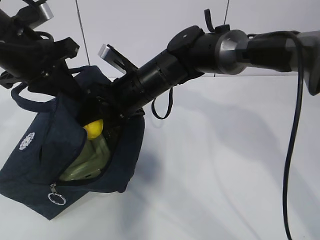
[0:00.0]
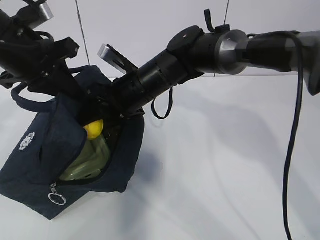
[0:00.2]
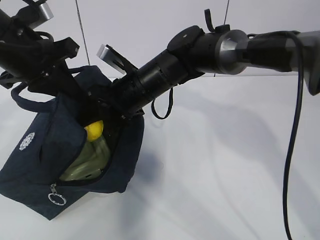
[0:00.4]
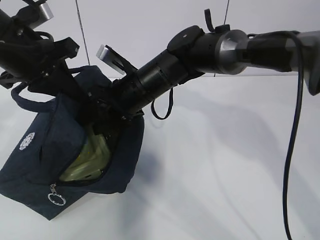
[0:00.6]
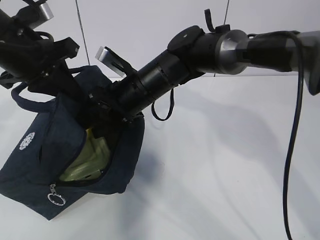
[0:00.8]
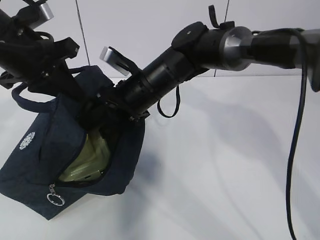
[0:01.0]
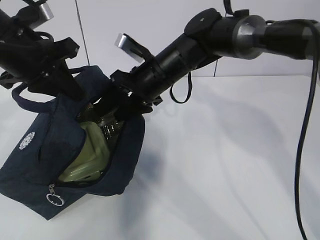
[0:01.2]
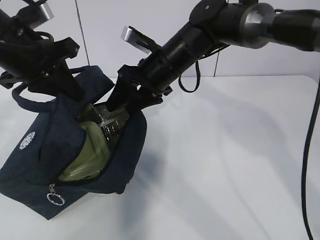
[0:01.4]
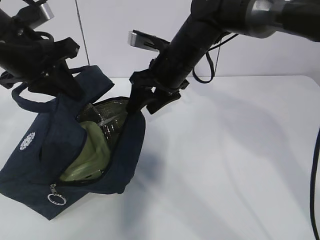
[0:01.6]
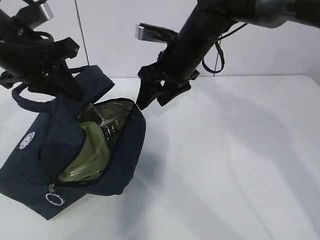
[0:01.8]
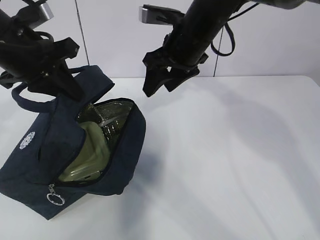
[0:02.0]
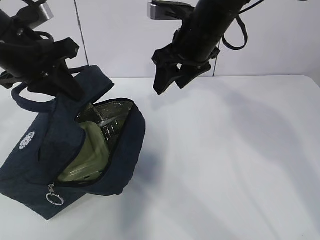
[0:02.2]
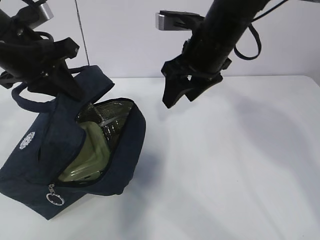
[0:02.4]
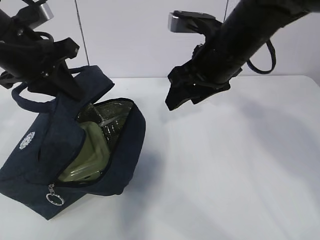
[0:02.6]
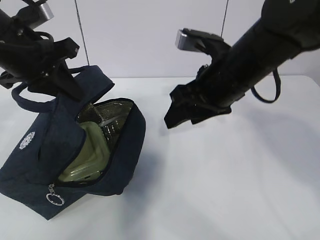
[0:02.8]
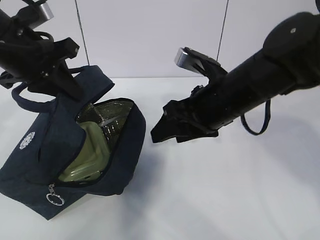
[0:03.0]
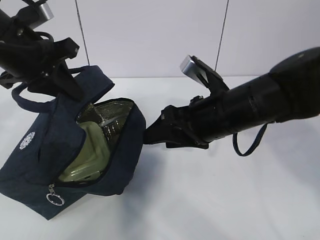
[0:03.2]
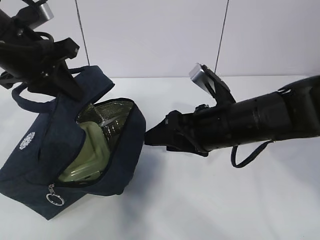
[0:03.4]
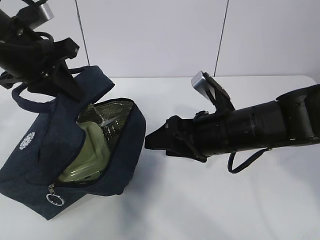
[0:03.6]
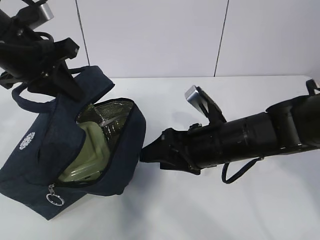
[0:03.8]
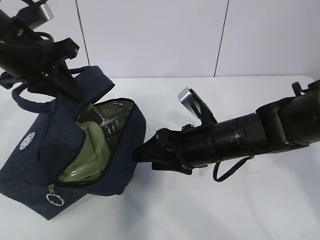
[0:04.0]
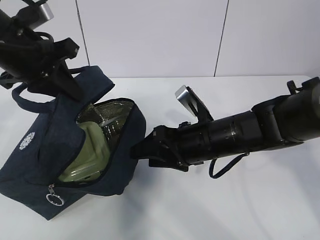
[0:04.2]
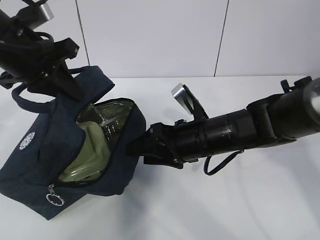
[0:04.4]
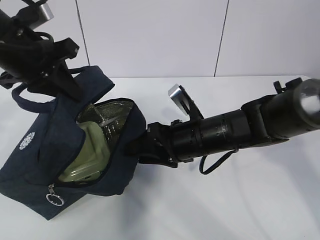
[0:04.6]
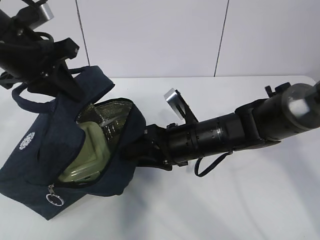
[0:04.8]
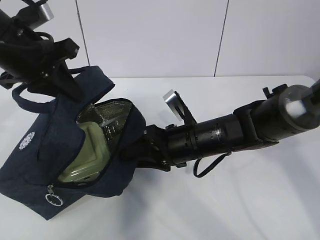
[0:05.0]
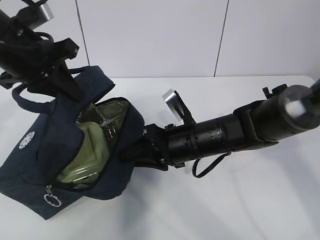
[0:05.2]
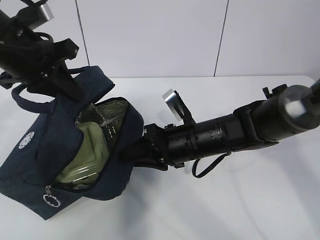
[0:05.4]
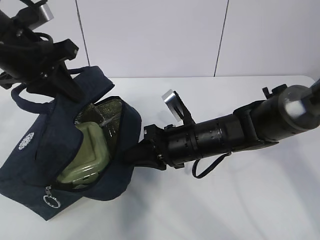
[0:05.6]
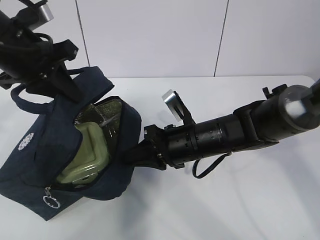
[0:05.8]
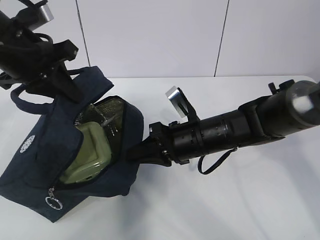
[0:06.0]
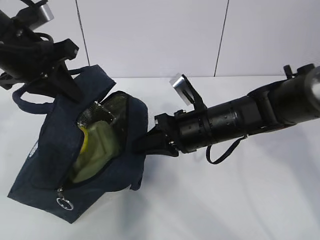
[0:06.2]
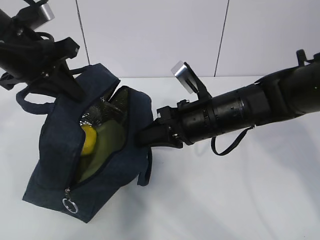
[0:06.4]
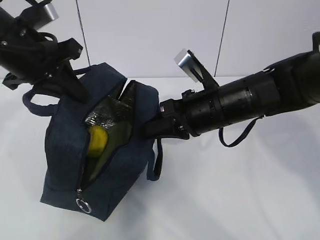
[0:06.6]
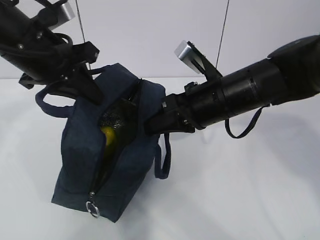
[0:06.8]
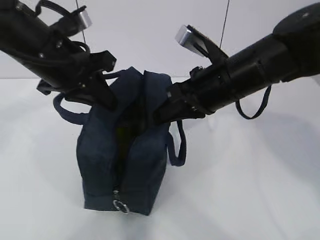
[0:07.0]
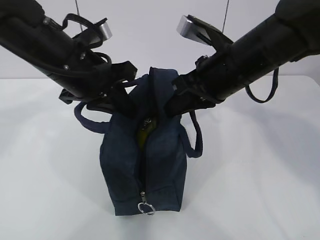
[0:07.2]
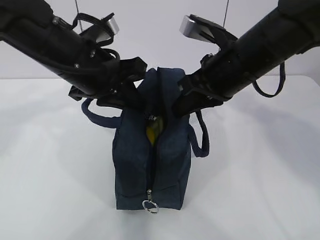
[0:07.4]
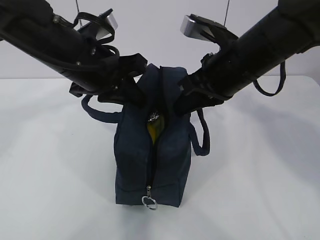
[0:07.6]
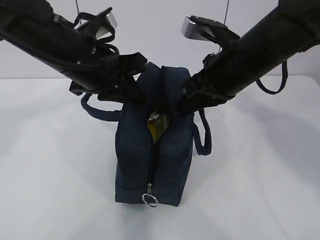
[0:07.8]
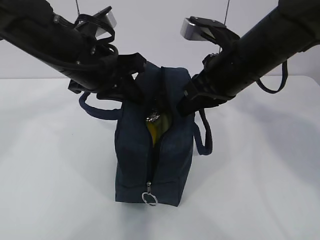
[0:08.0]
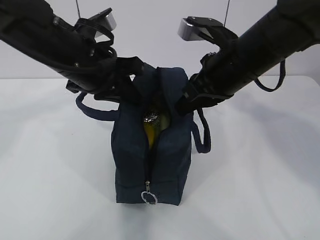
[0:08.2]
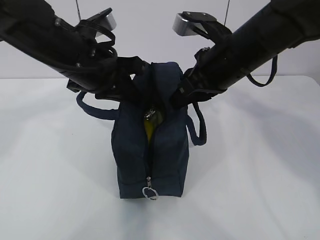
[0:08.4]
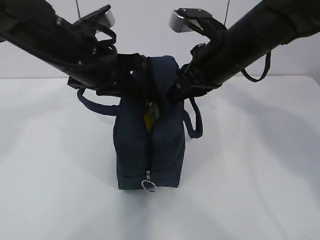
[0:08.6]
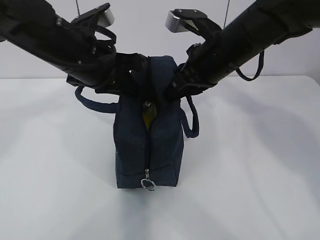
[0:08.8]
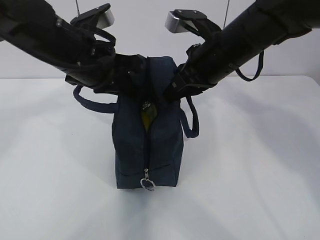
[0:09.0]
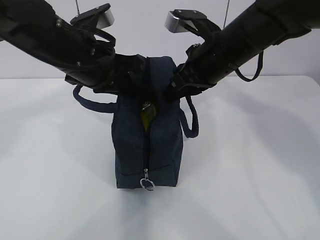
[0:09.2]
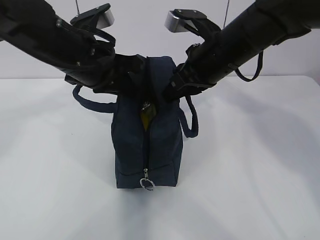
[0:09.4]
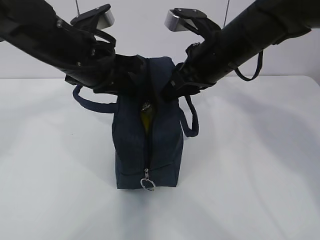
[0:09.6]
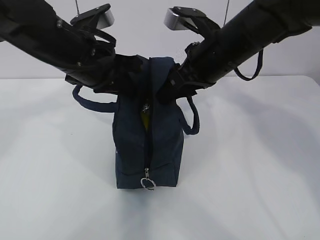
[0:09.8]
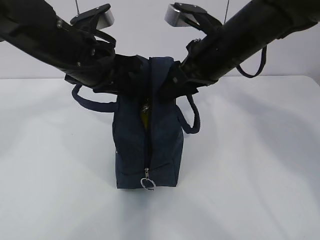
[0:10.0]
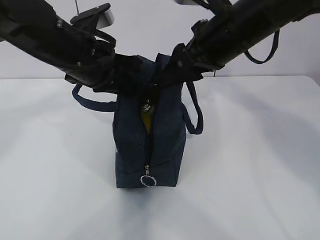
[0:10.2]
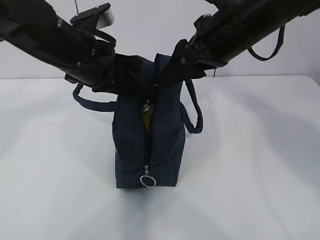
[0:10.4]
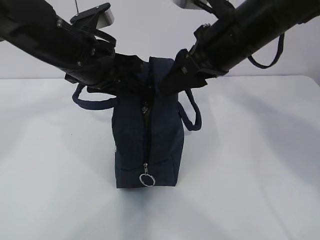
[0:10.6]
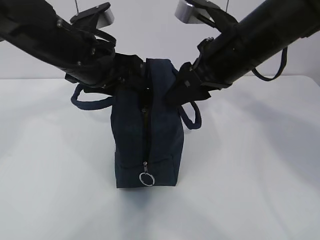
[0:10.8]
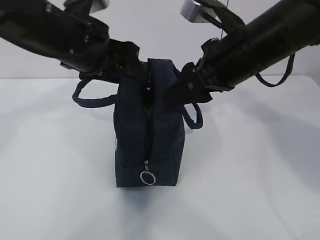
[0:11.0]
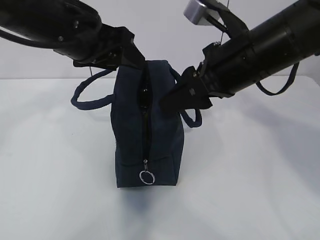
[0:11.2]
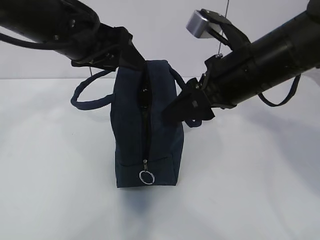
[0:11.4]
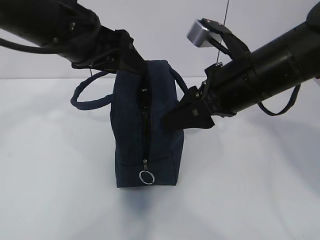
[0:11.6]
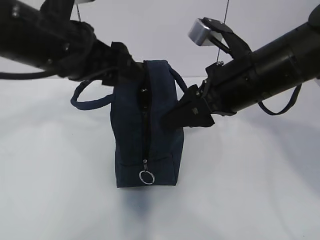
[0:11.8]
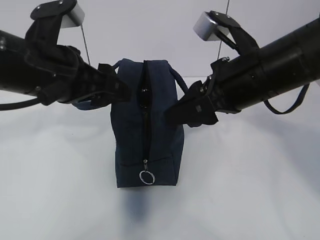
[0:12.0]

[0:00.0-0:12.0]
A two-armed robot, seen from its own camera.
0:00.0 to 0:01.6: The right gripper moves to the right, about 5 cm.
0:01.6 to 0:03.0: The right gripper moves backward and to the right, about 10 cm.
0:03.0 to 0:04.4: The right gripper shifts roughly 10 cm downward.
0:04.4 to 0:06.0: The right gripper closes.
0:06.0 to 0:07.6: The left gripper moves to the right, some 10 cm. The right gripper shifts approximately 15 cm upward.
0:07.6 to 0:09.0: The grippers move only a little.
0:09.0 to 0:10.4: The right gripper moves roughly 5 cm, and opens up.
0:10.4 to 0:12.0: Both grippers travel together backward, about 5 cm. The left gripper opens.

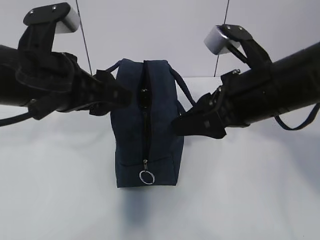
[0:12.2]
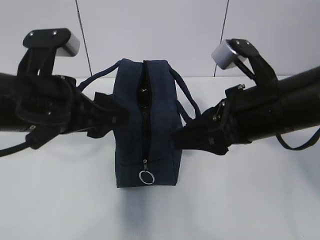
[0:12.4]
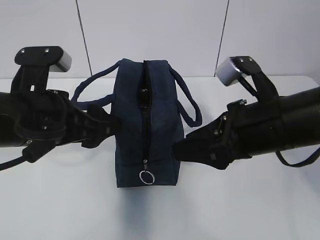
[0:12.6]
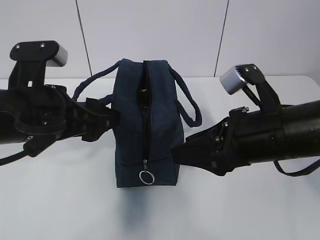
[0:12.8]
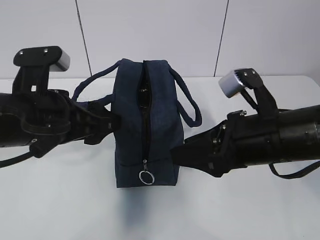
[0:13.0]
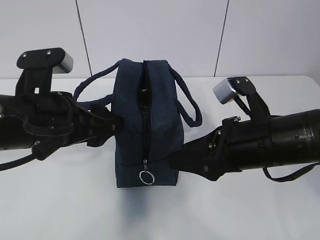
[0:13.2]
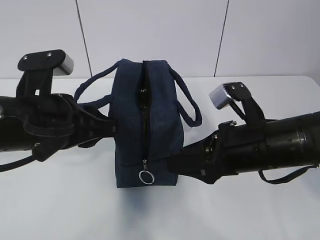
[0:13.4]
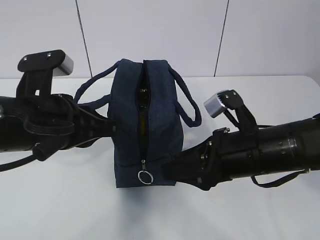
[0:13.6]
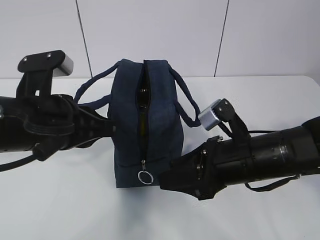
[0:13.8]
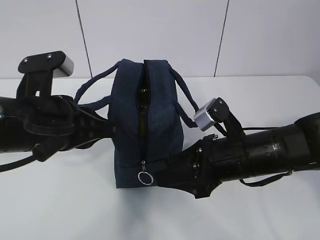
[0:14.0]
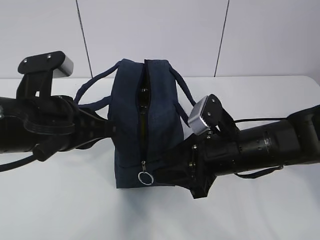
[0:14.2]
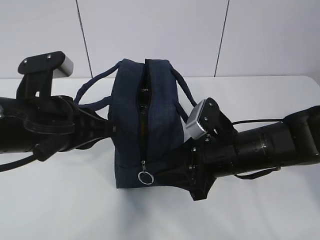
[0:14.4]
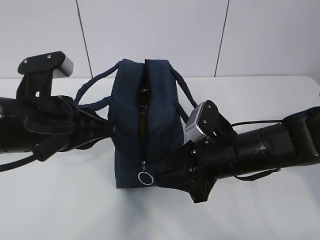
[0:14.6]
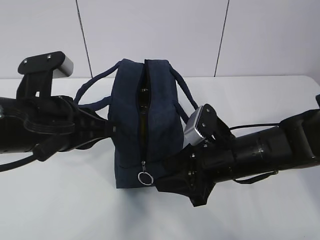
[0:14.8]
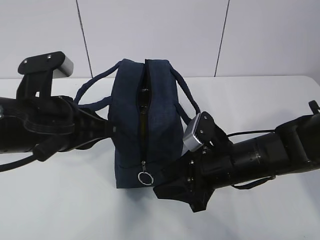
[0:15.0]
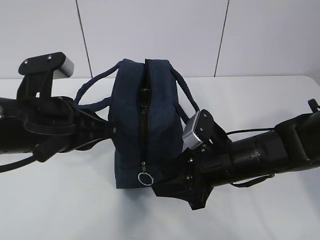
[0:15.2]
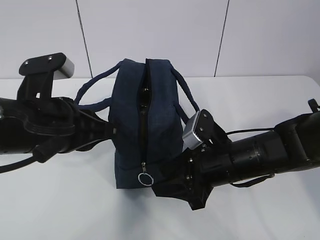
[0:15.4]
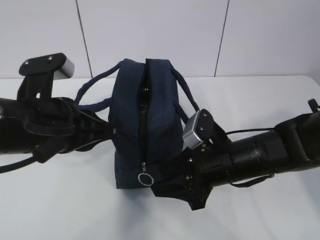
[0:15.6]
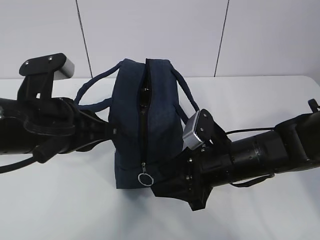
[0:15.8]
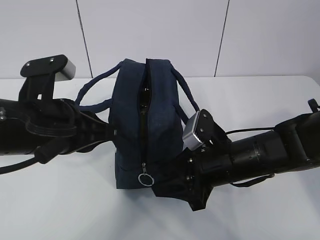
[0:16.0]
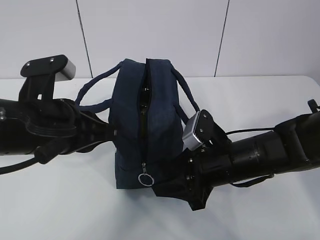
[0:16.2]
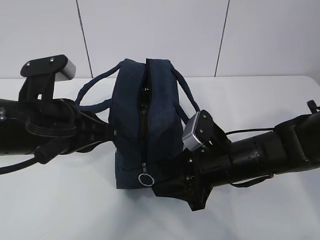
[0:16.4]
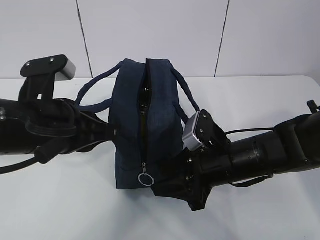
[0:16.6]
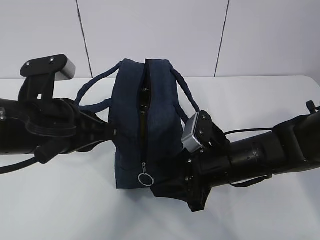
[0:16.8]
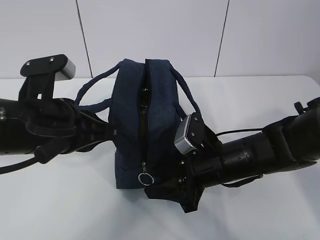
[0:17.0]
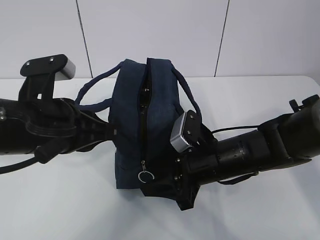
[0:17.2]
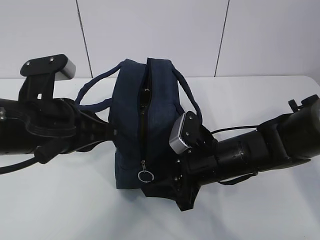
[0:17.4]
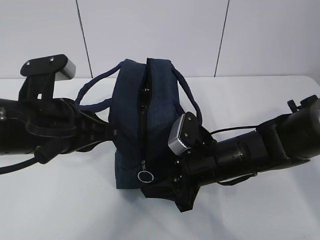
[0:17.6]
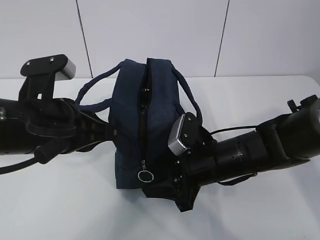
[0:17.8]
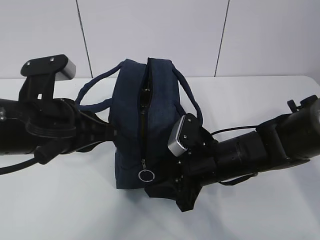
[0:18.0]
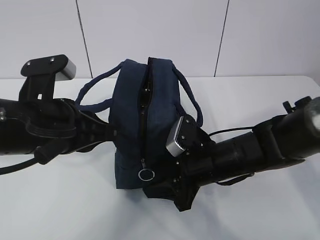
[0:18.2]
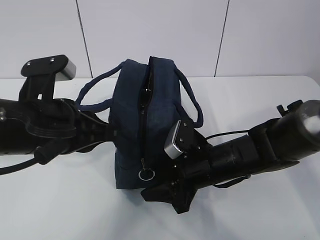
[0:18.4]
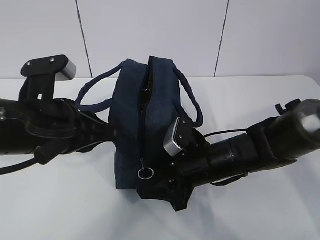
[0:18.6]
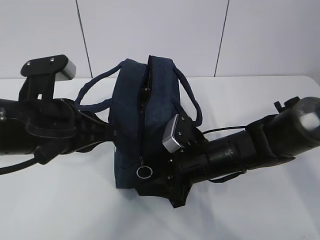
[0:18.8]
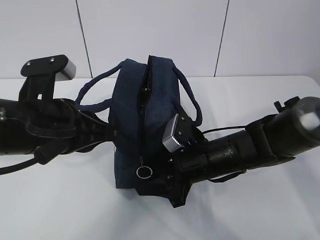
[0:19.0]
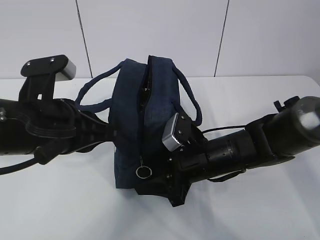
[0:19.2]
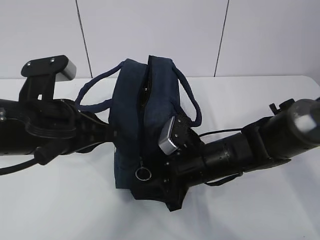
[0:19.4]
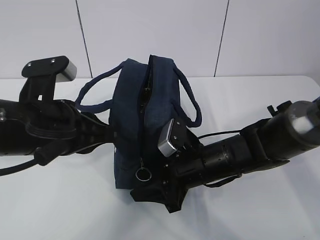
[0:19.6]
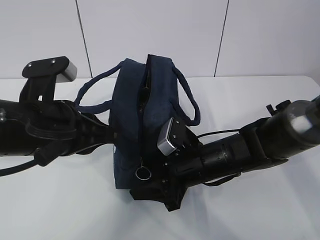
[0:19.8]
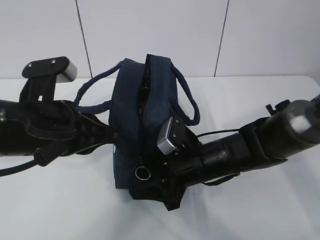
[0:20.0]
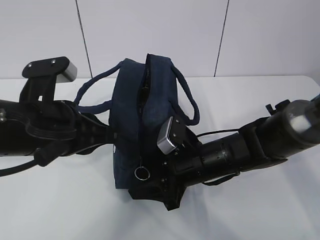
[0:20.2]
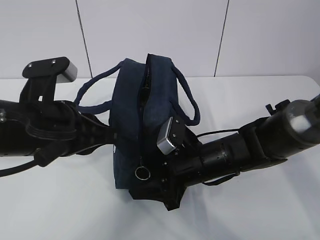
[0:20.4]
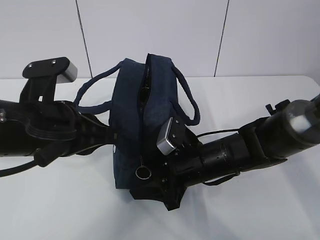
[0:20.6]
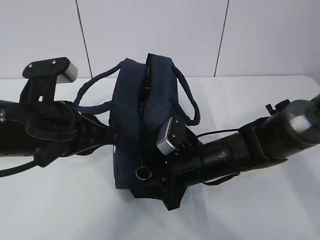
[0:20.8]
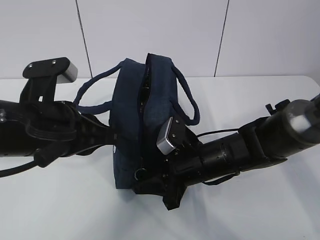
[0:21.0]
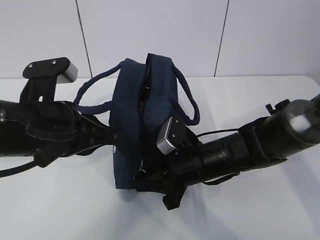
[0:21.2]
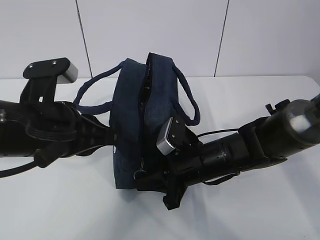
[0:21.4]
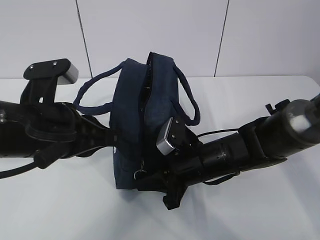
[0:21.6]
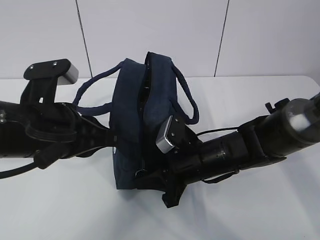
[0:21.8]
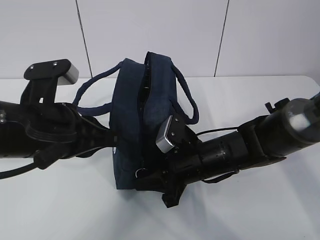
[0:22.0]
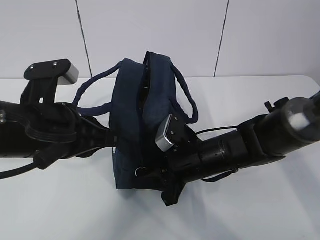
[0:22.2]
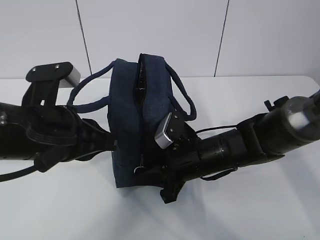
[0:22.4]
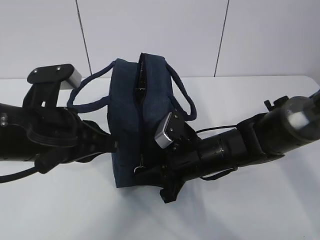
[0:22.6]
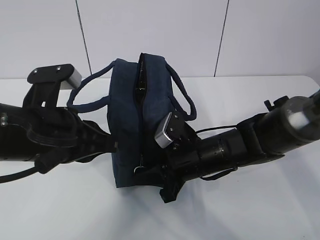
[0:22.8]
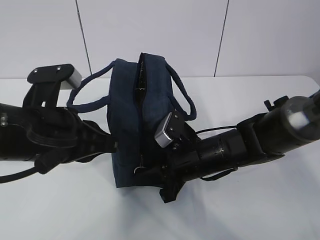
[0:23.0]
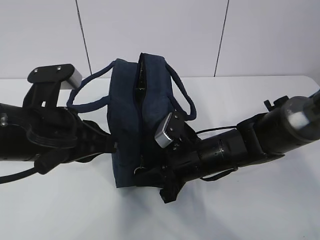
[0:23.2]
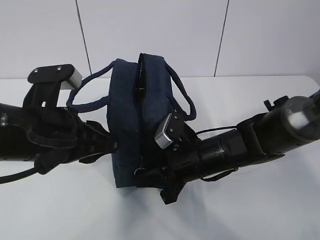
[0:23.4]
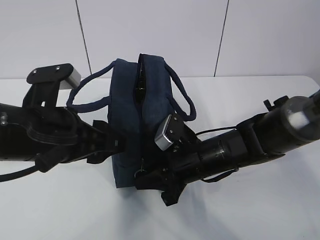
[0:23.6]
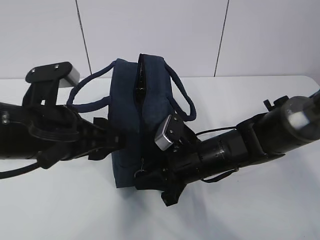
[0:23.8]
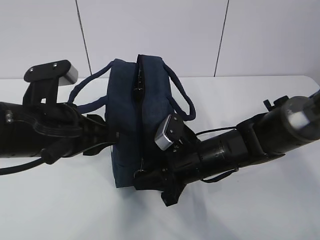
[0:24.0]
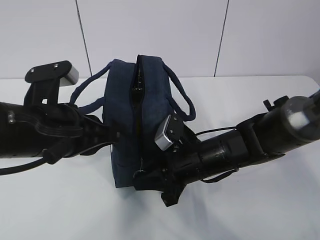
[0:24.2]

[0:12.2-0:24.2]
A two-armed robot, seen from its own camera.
0:12.2 to 0:13.8: The left gripper shifts by some 5 cm, and closes its fingers. The right gripper heads downward, covering roughly 10 cm.
0:13.8 to 0:15.2: The grippers stay close to where they were, moving slightly.
0:15.2 to 0:16.6: The two grippers keep their place.
0:16.6 to 0:19.8: The grippers make only small movements.
0:19.8 to 0:21.2: The right gripper closes.
0:21.2 to 0:22.6: Both grippers stay about where they are.
0:22.6 to 0:24.2: The left gripper opens and closes again.
